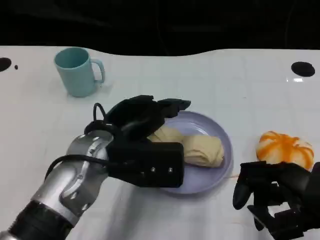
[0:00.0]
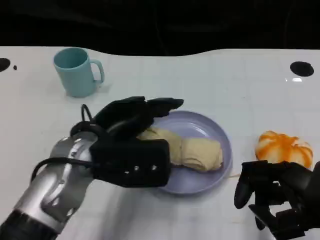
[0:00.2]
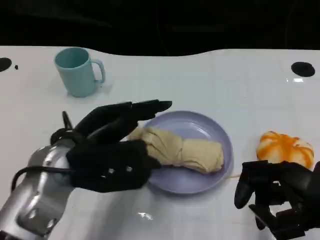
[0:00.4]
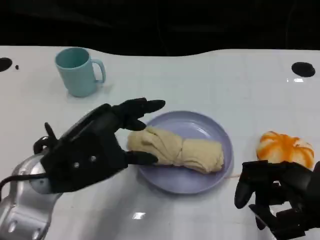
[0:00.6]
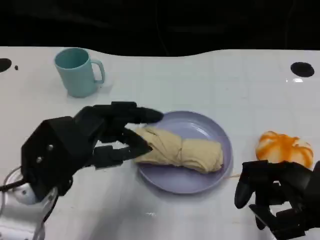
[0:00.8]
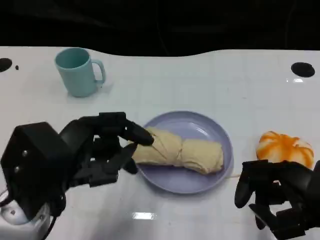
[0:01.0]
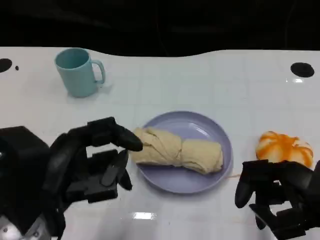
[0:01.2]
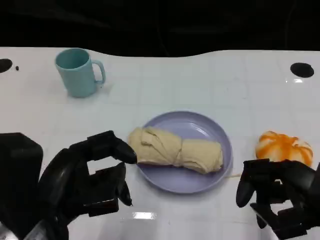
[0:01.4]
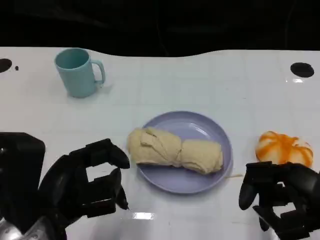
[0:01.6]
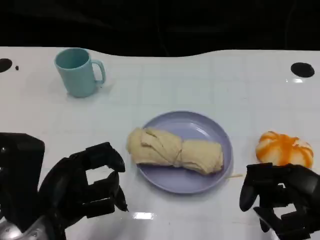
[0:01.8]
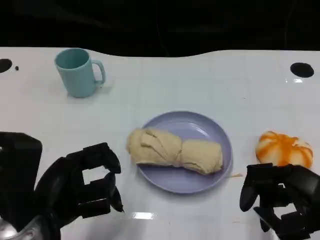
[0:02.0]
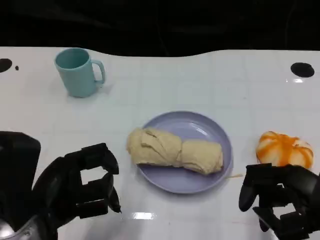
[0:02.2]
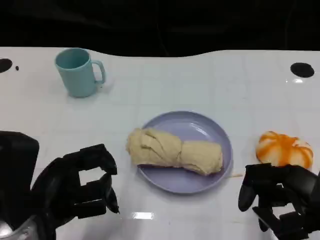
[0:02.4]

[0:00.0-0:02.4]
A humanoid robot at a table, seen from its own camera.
Task of the whole recording: Grasp the towel on the left side of the plate with the left hand and place it into the plate.
0:00.0 to 0:01.2: The left hand heads backward and to the left, covering roughly 15 cm.
0:01.2 to 0:02.4: The hands make only small movements.
